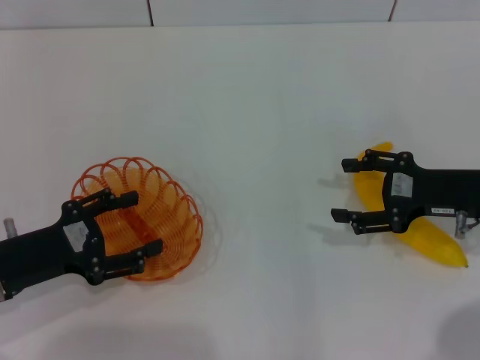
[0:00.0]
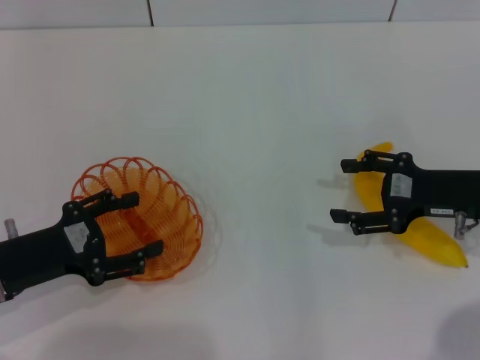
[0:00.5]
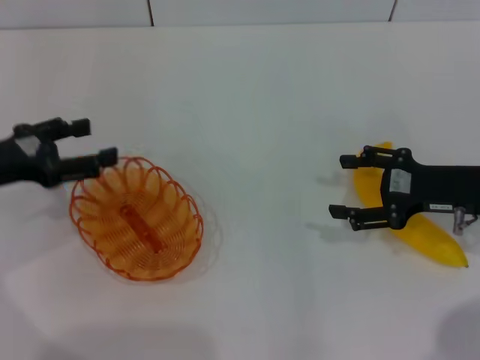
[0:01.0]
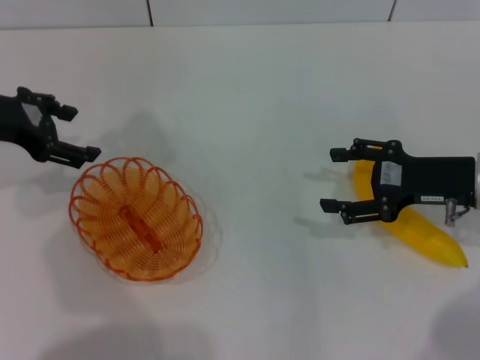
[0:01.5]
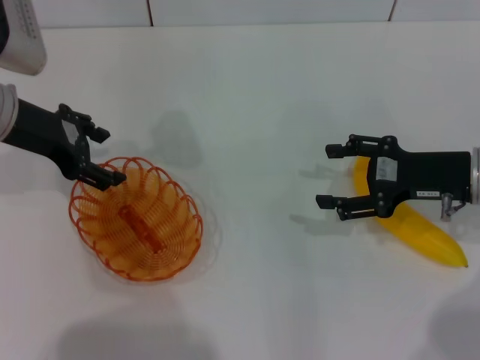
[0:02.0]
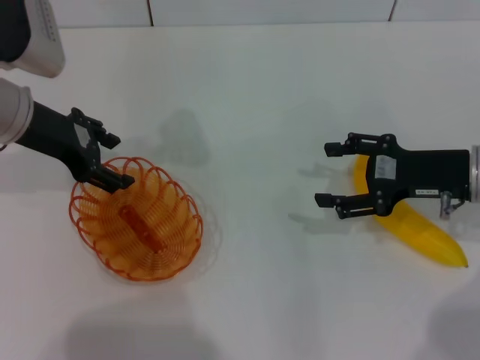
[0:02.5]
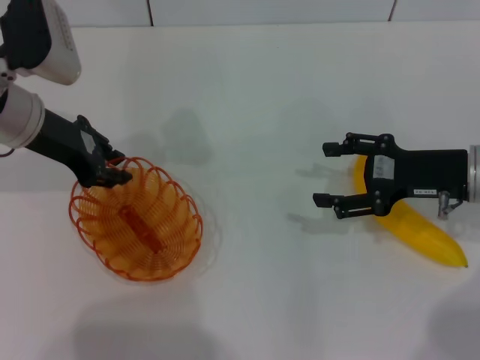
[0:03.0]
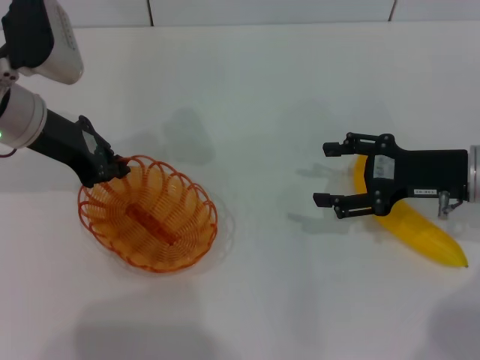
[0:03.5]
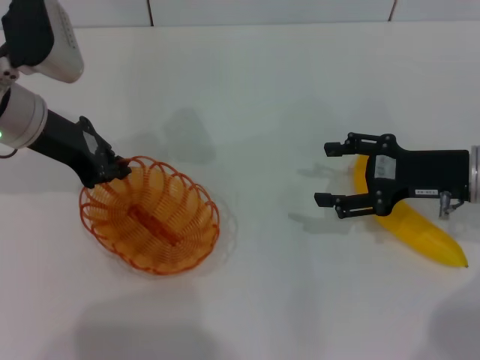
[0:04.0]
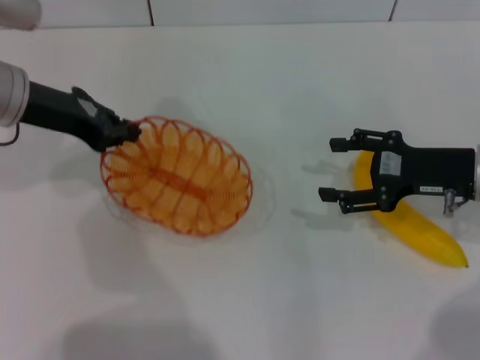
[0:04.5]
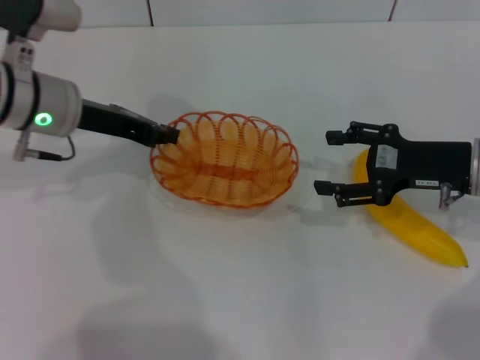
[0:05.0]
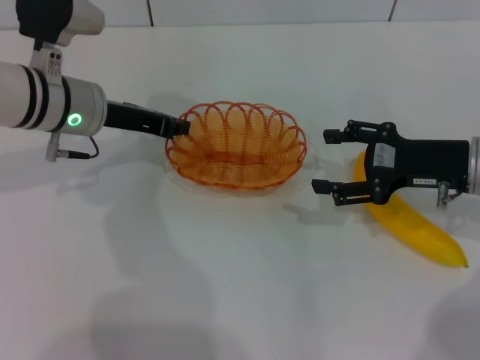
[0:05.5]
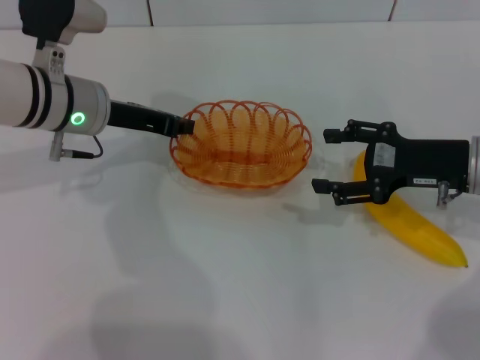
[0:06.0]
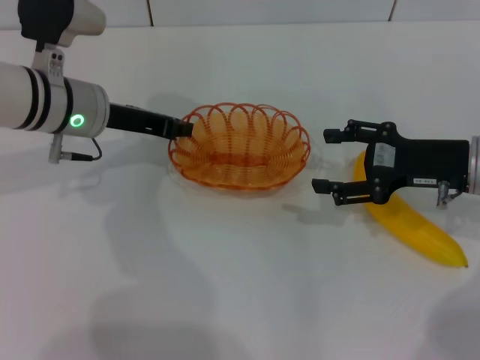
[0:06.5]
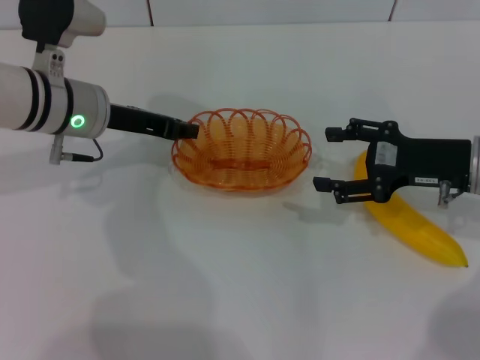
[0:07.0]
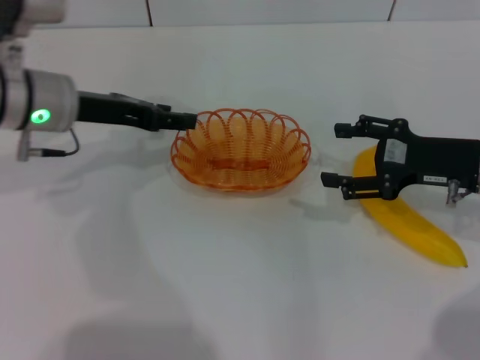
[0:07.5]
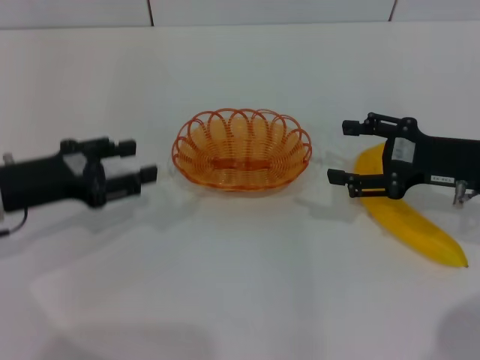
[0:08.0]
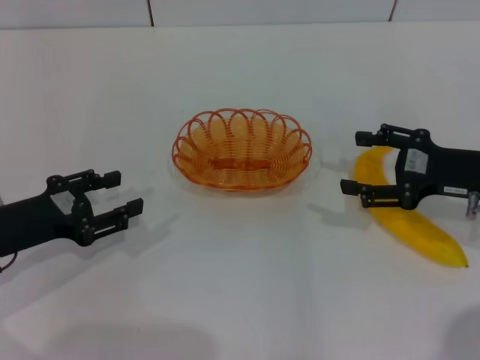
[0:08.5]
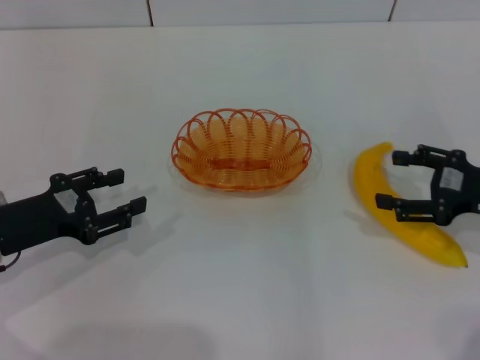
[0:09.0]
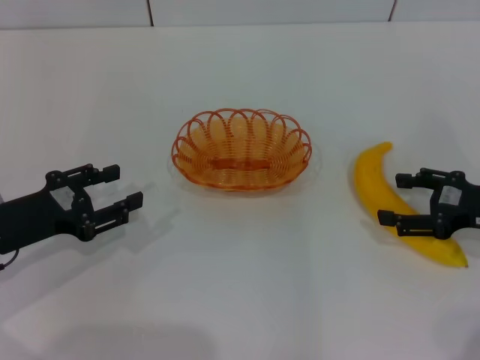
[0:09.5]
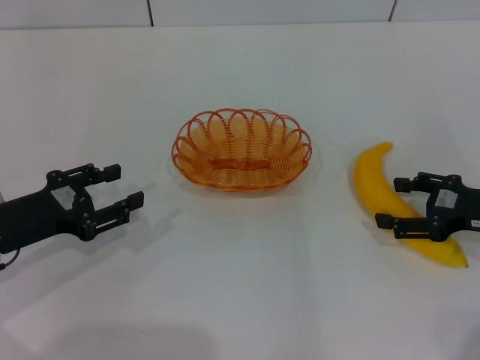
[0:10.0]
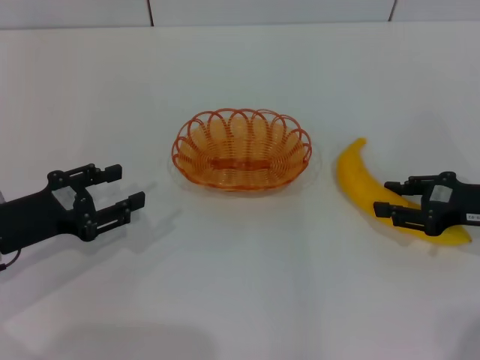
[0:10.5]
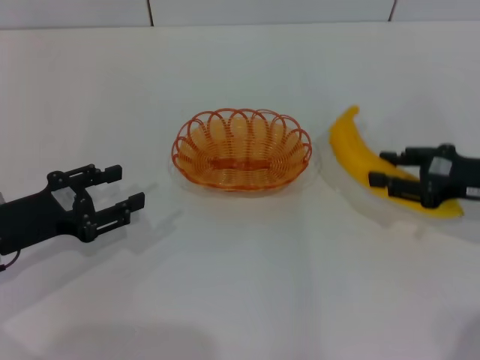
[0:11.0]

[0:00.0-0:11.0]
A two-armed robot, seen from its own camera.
Step, 0:00.0 to 0:04.0: Pick up the basket with the left gripper.
Step, 0:04.5 to 0:07.5: Place the basket in the center of view with the left gripper.
Step, 0:08.0 to 0:11.0: Pick up the banana with the right gripper.
0:00.0 to 0:02.0: The left gripper is displaced forward and upward by about 20 cm.
0:02.0 to 0:03.5: The left gripper closes.
0:03.5 to 0:05.5: The left gripper shifts by about 5 cm.
0:05.5 to 0:07.5: The left gripper opens its fingers.
0:07.5 to 0:09.0: The right gripper travels to the right by roughly 5 cm; the left gripper heads backward, downward and to the left, covering about 15 cm.
0:09.0 to 0:11.0: The right gripper closes its fingers.

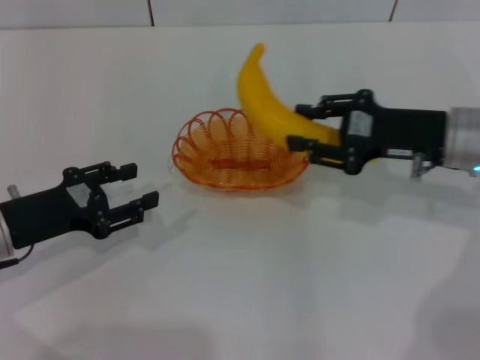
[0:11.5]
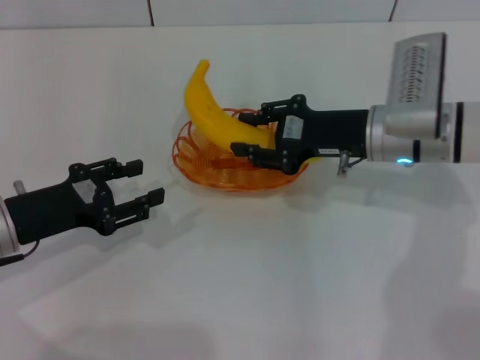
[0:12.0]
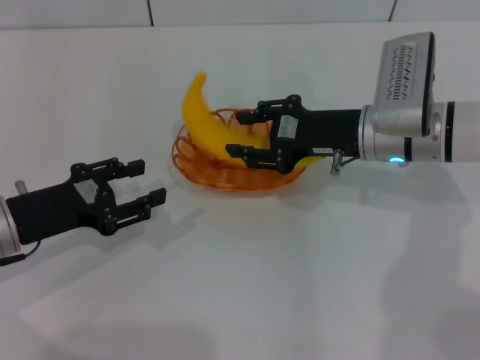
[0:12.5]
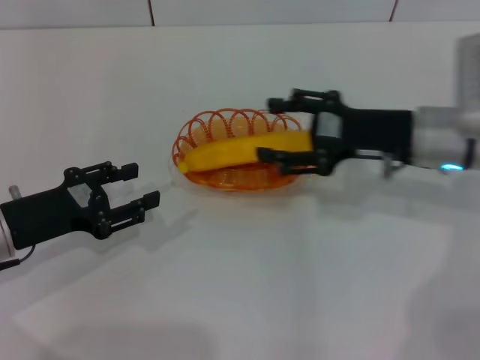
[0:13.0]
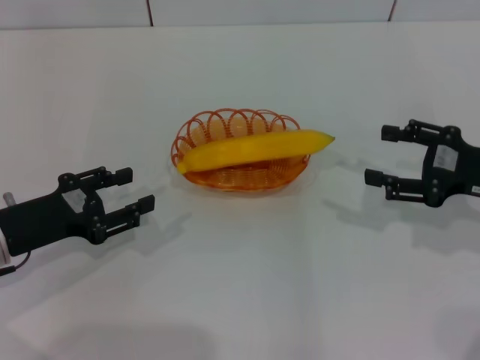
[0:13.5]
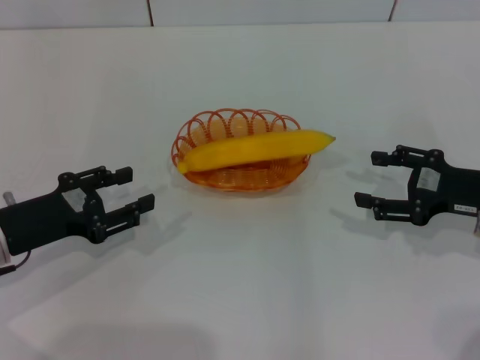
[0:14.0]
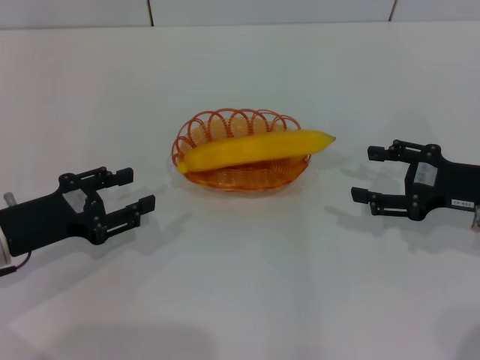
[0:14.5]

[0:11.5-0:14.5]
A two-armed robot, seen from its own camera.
Step, 0:11.5 to 0:13.0: Place the banana into the basket with the right gripper.
0:11.5 to 0:13.0: The right gripper opens its fingers.
0:13.0 to 0:14.5: The right gripper travels to the right and backward by about 10 cm.

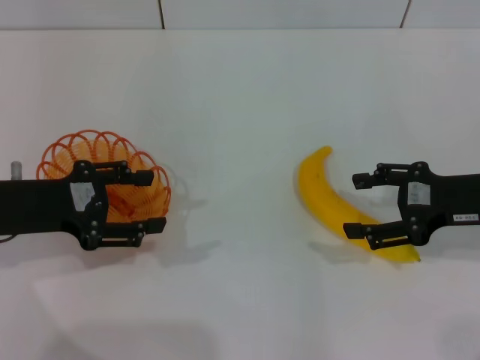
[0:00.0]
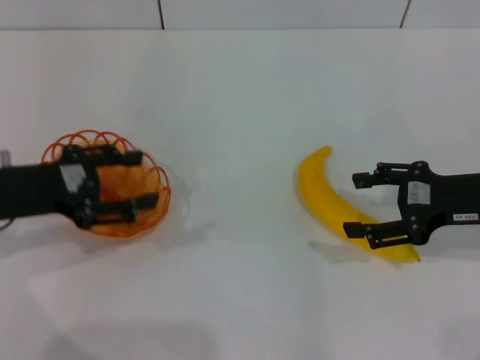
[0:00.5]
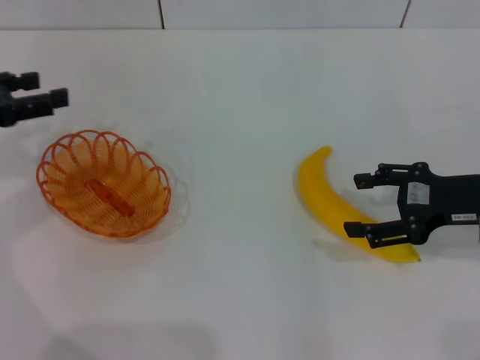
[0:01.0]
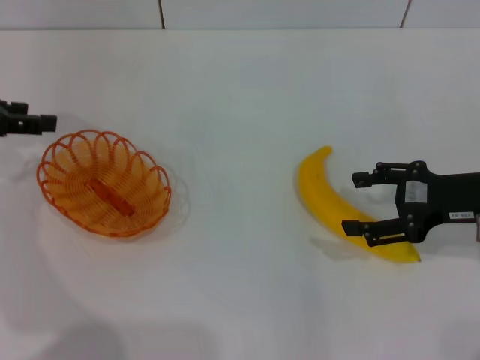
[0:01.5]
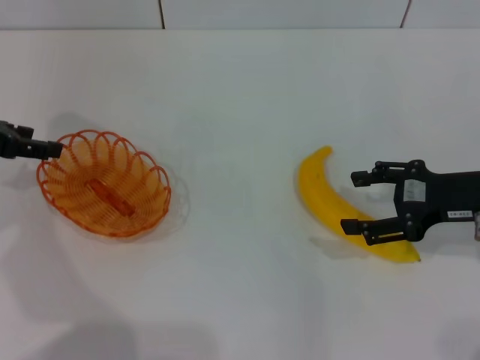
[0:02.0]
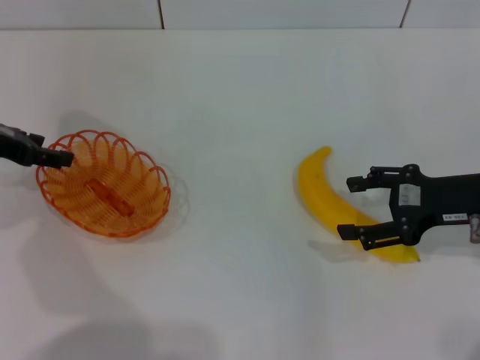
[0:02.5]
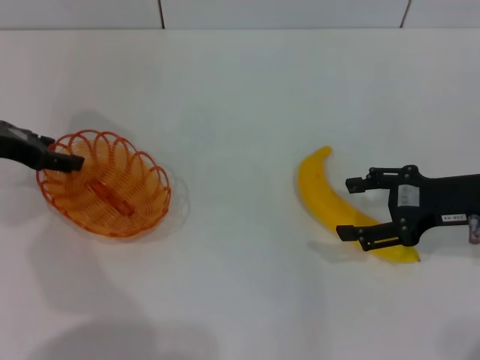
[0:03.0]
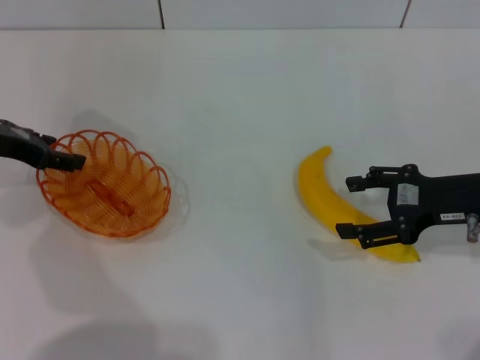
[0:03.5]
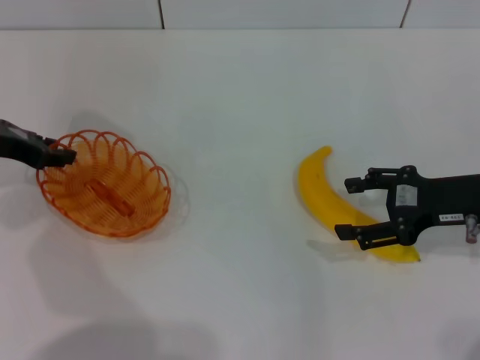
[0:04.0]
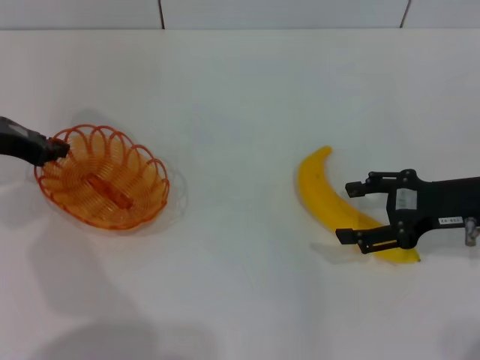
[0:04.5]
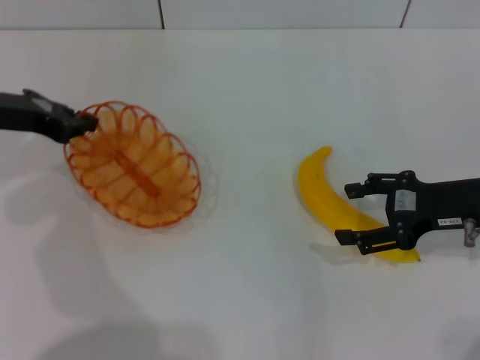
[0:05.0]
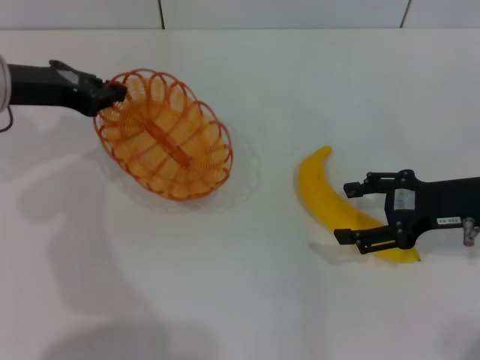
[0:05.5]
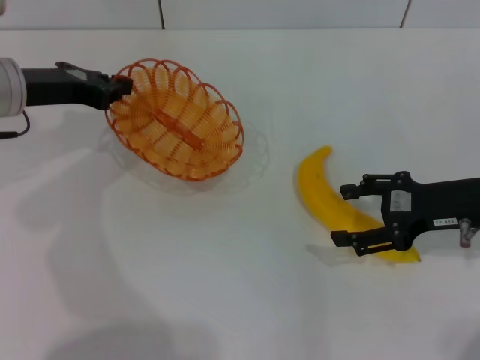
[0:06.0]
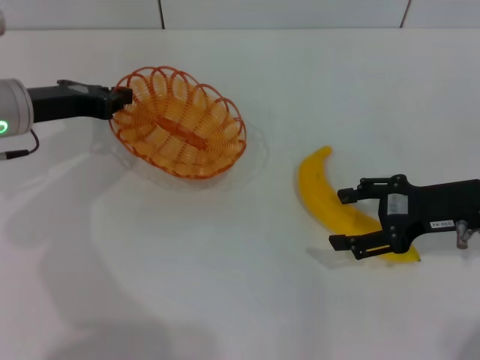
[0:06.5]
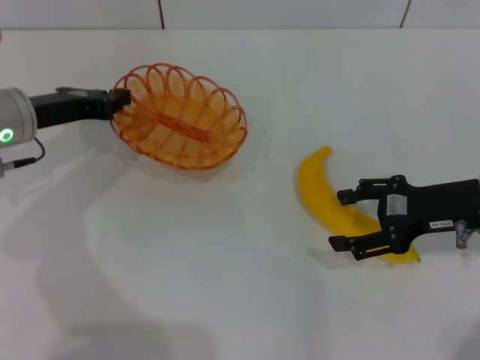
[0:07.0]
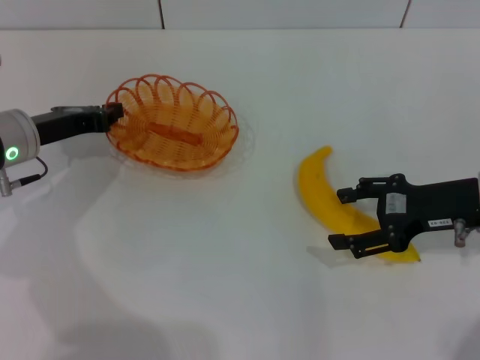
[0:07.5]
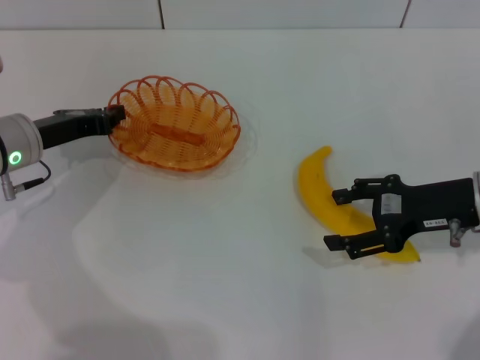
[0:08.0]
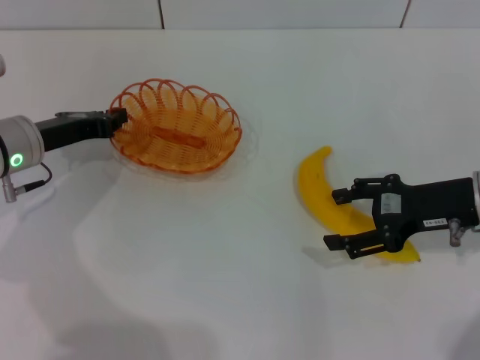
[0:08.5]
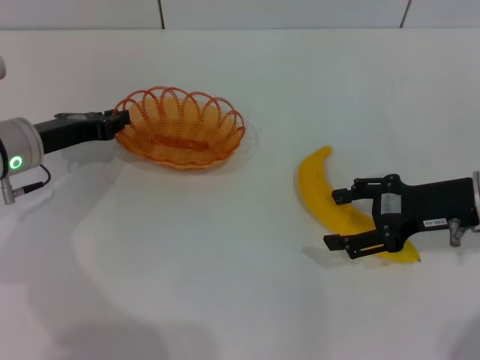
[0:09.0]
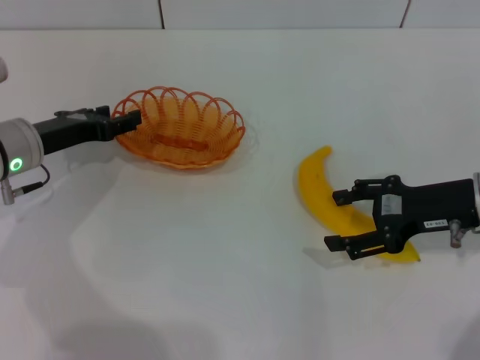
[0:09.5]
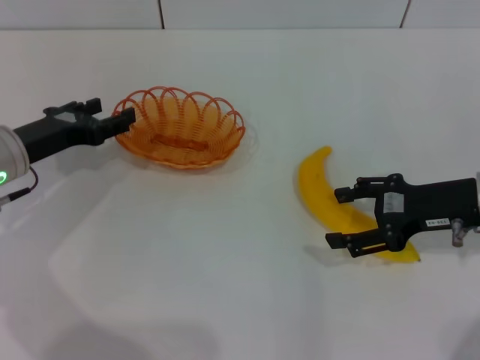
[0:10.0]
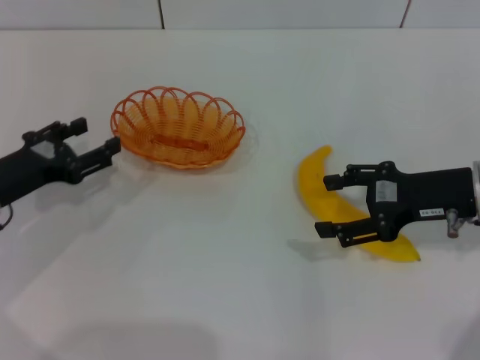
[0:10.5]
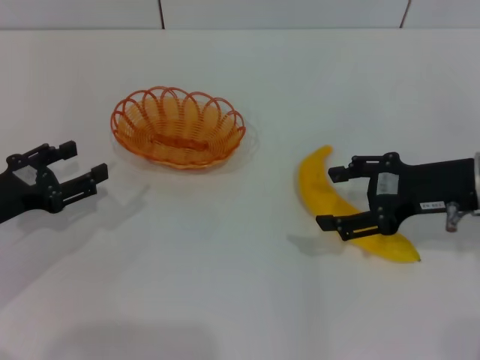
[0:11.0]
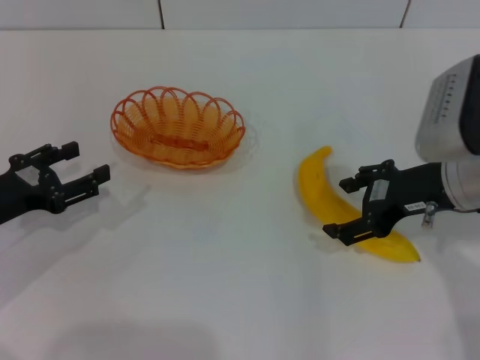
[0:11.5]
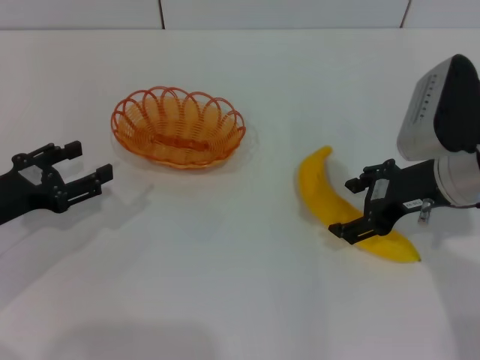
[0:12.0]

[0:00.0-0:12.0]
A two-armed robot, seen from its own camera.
Step, 0:00.0 to 0:06.5: Pick up the basket with the left gripper.
Step, 0:07.0 to 0:09.5: Place the basket in the center of view with the left gripper.
0:00.0 to 0:02.0: The left gripper shifts roughly 10 cm forward and to the left.
0:02.0 to 0:04.0: There are only small adjustments of the grippers.
0:04.0 to 0:06.0: The left gripper goes about 5 cm to the right, and closes.
0:06.0 to 0:08.0: The left gripper travels downward by roughly 5 cm.
0:08.0 to 0:10.0: The left gripper opens up.
0:10.0 to 0:12.0: The left gripper heads backward, covering roughly 5 cm. Meanwhile the right gripper is displaced to the left by approximately 5 cm.
